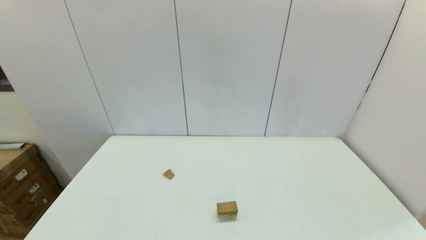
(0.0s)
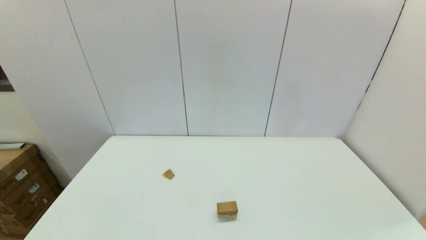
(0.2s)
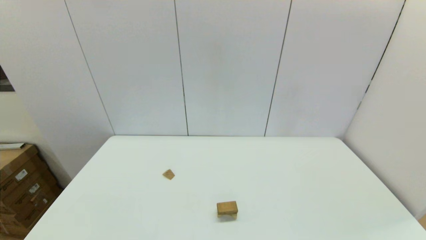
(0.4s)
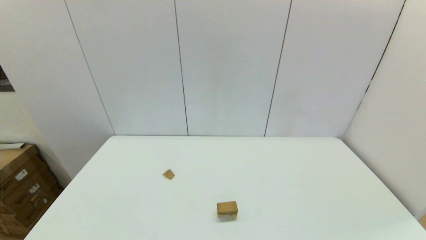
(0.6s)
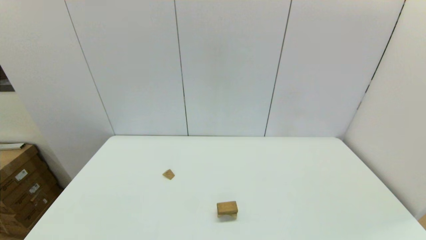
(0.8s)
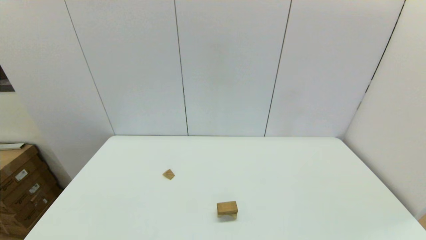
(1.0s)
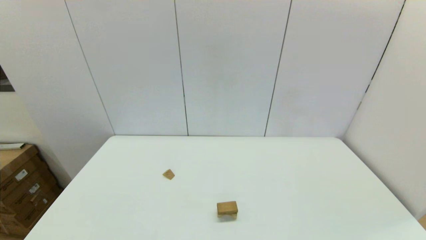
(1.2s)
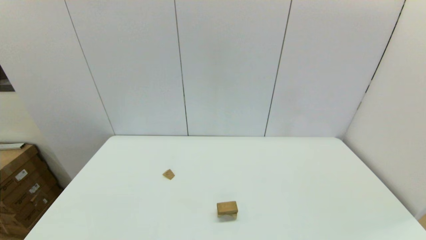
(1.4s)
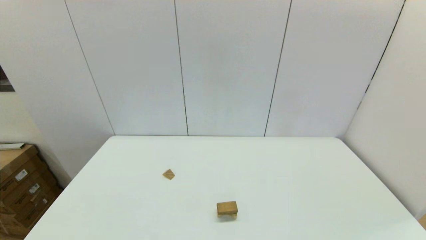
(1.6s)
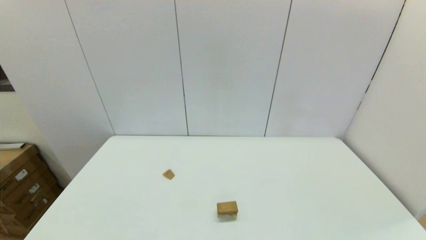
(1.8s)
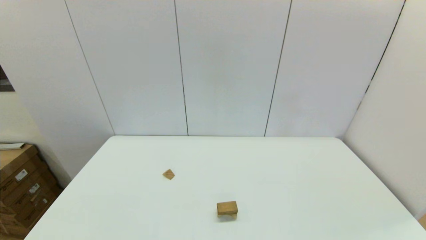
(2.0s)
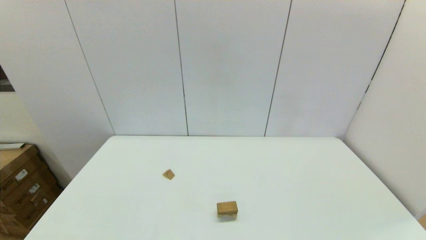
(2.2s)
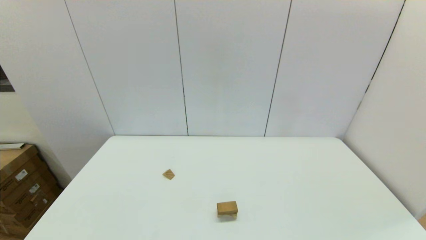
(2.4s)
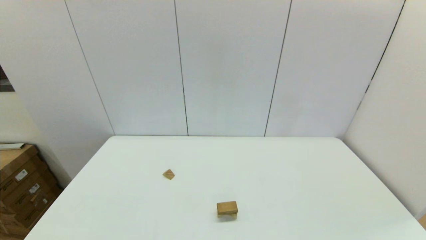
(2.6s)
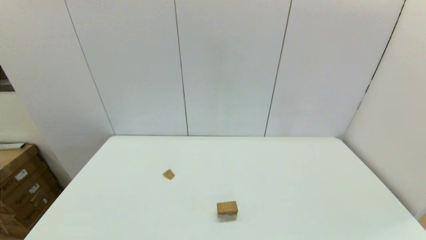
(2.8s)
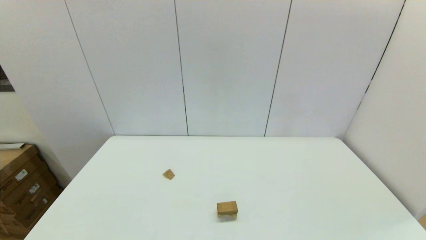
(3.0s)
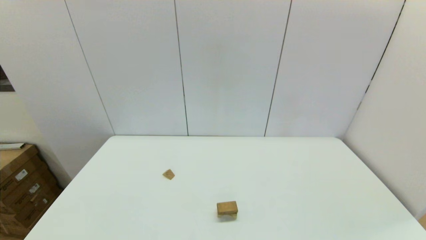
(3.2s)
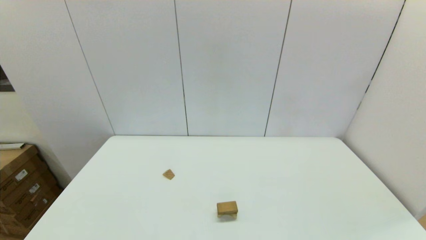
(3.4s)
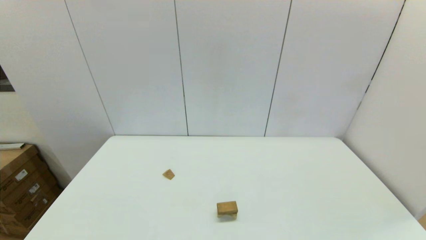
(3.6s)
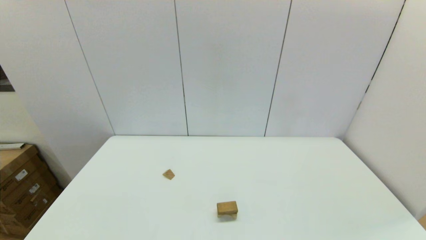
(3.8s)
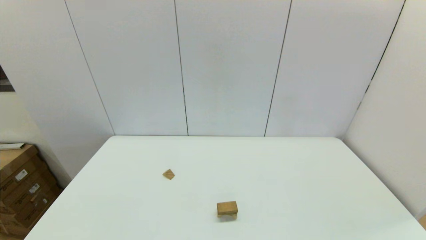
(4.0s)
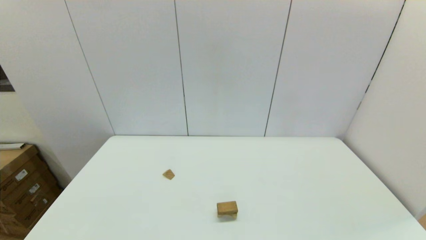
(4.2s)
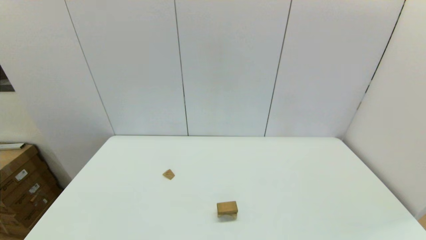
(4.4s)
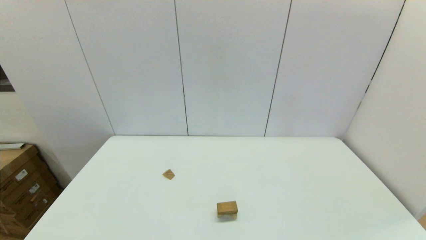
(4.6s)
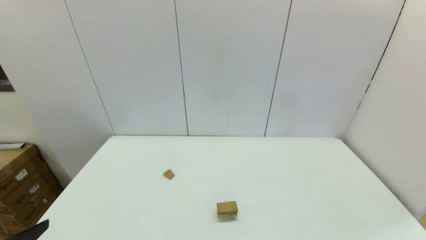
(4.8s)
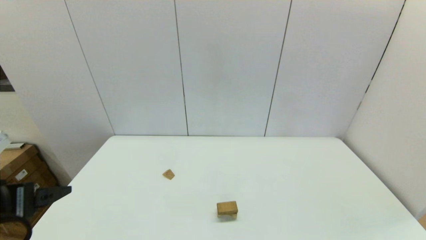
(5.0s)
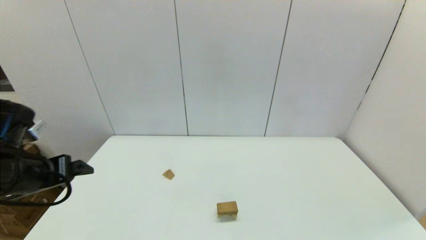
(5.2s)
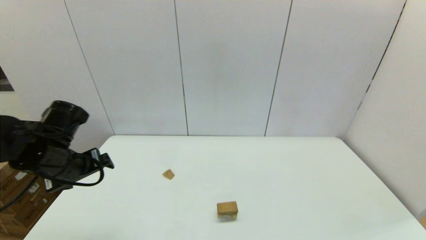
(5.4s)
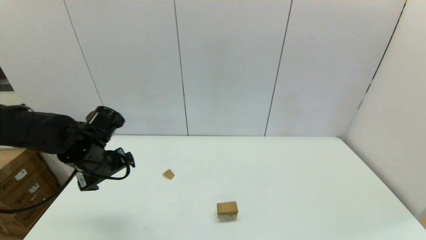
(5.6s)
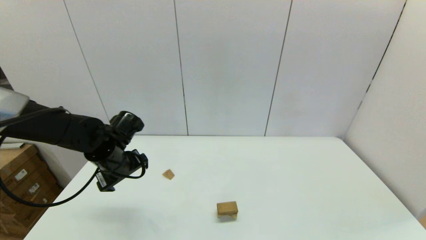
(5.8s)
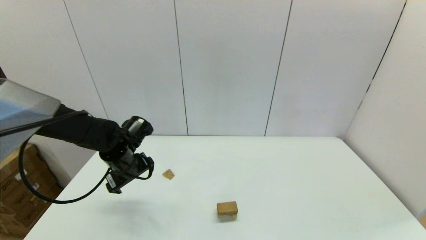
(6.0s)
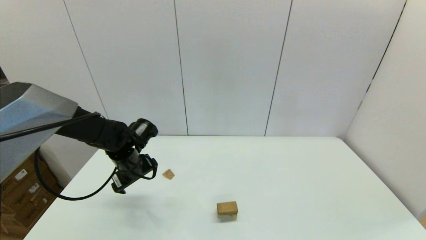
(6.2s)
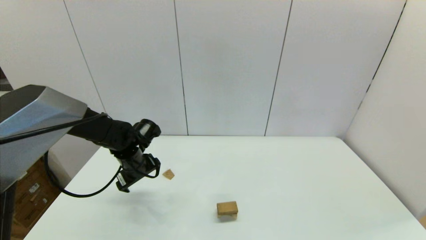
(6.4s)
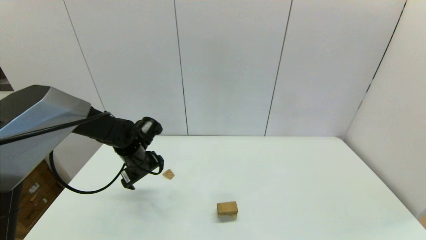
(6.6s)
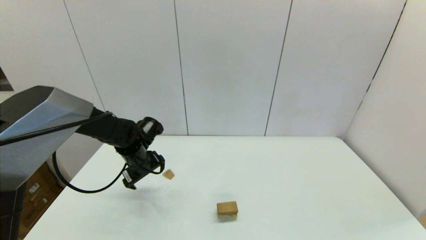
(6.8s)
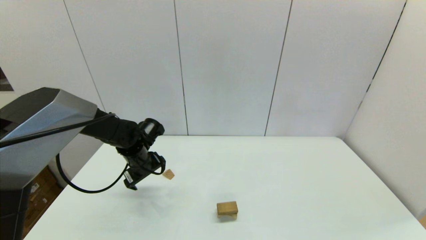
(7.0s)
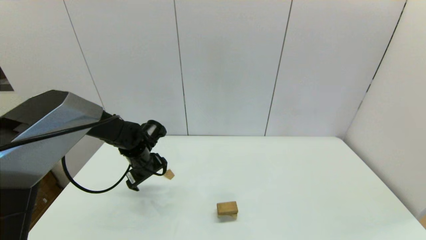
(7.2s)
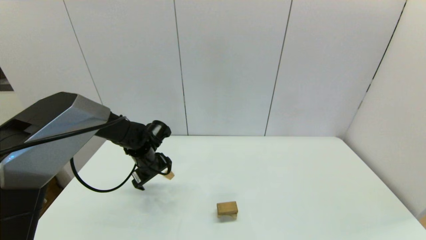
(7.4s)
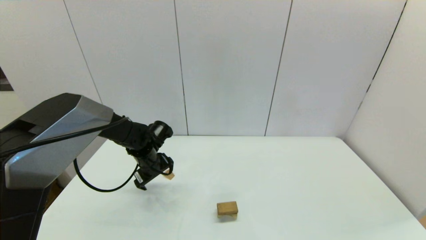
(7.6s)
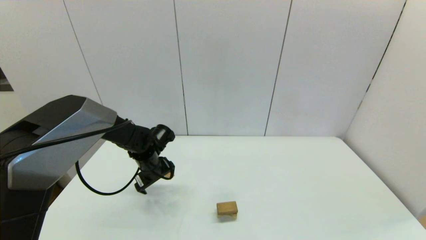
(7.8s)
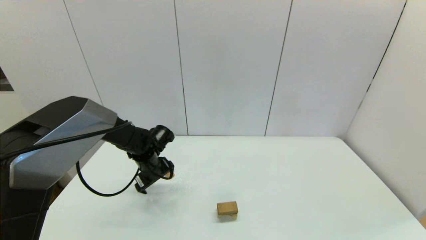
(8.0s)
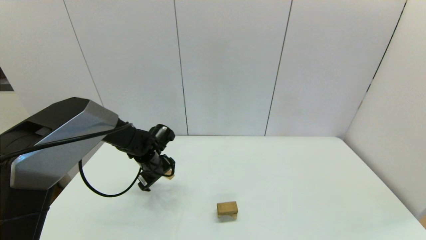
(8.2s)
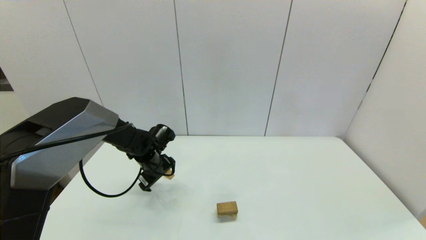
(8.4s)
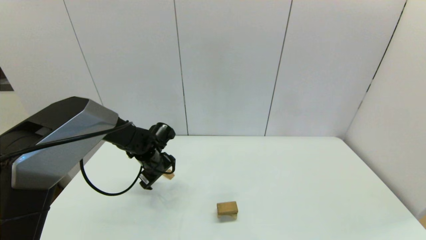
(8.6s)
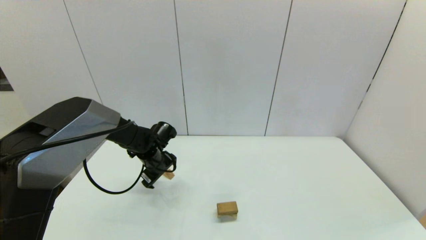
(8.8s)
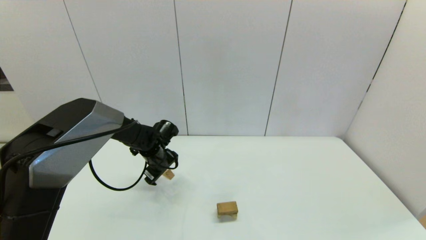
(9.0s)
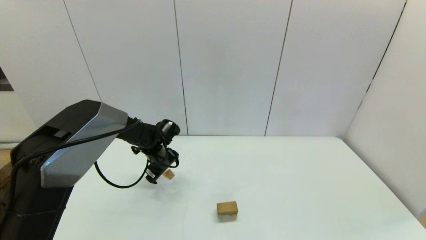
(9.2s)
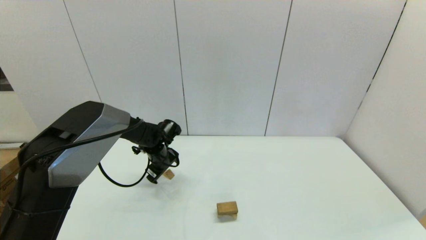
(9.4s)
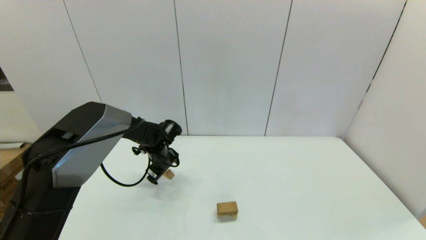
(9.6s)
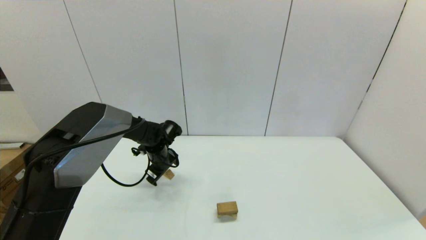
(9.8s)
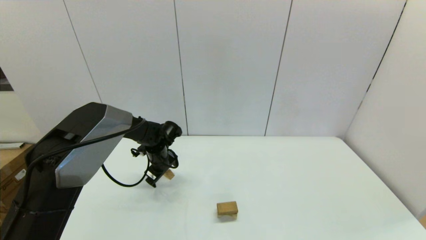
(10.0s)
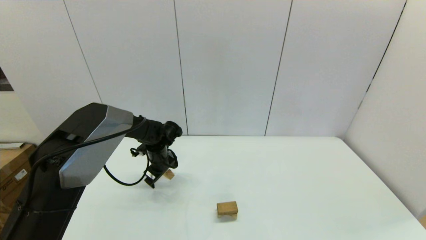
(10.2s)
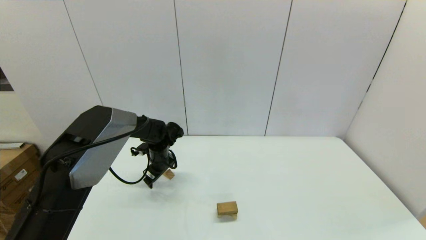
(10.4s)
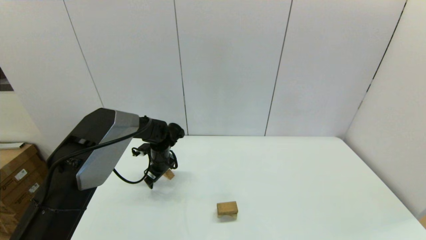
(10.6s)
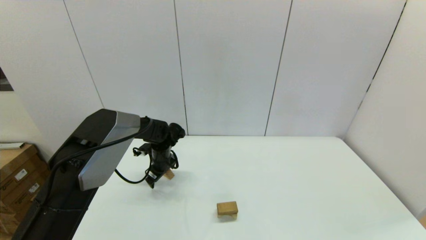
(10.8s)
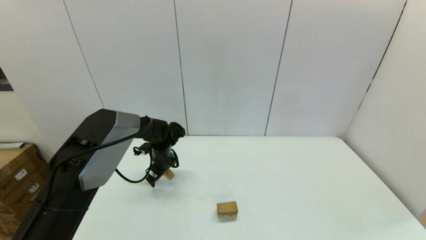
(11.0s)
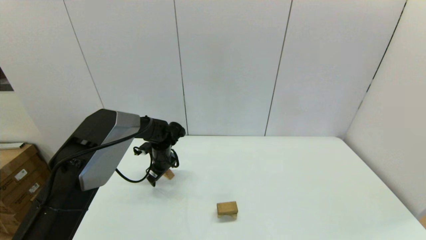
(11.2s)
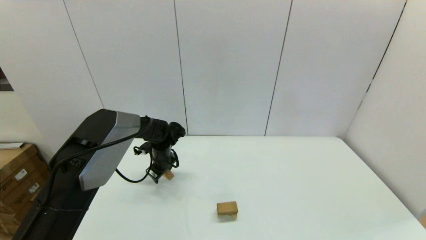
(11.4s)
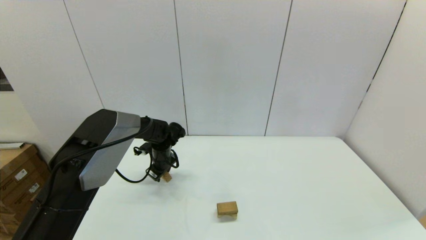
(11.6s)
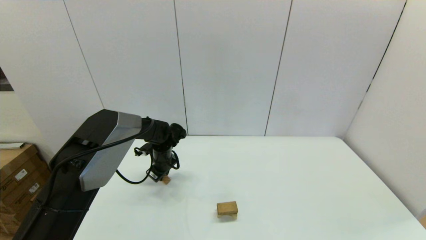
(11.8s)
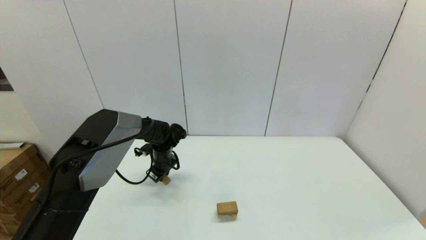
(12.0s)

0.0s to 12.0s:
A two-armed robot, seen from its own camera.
Task of the whole recording: place the arched building blocks in the center of the table, set up the rectangular building blocks, and then set up the triangular building blocks.
4.4s to 6.0s: The left gripper travels forward by approximately 35 cm.
6.0s to 7.6s: The left gripper shifts by about 10 cm.
7.6s to 10.4s: There are only small adjustments of the grippers.
10.4s to 12.0s: The left gripper closes up.

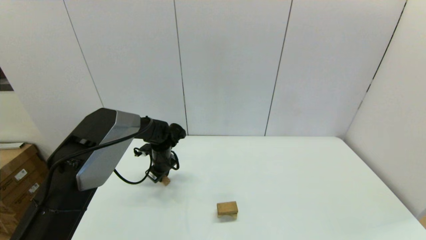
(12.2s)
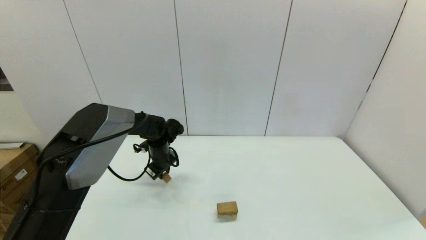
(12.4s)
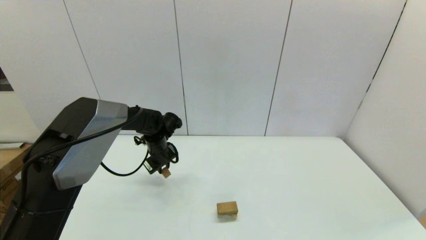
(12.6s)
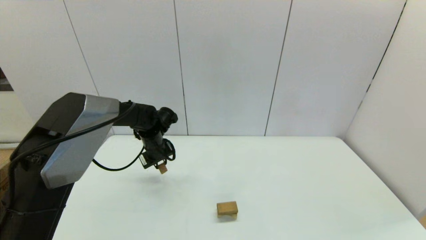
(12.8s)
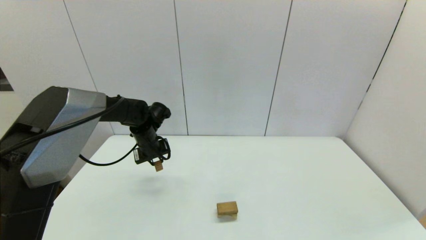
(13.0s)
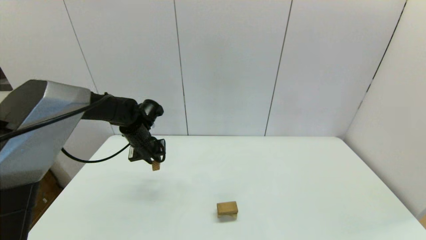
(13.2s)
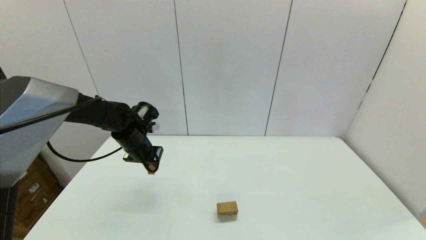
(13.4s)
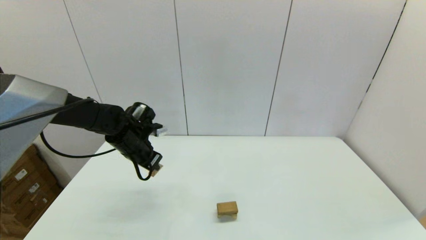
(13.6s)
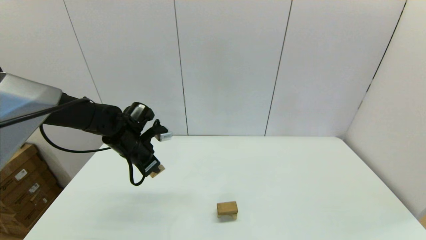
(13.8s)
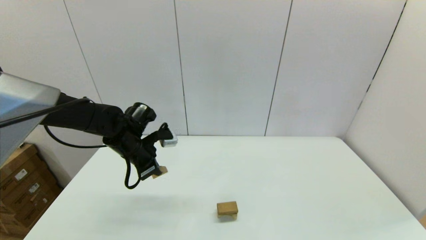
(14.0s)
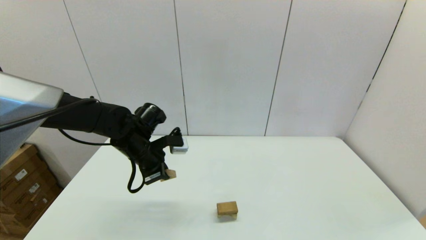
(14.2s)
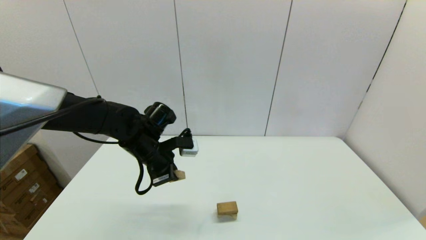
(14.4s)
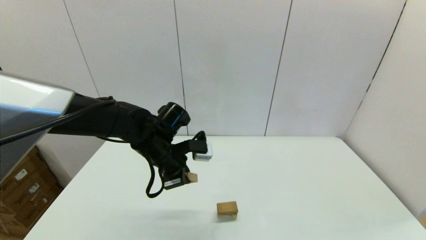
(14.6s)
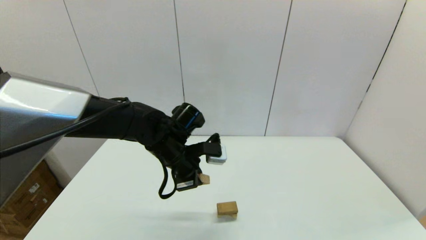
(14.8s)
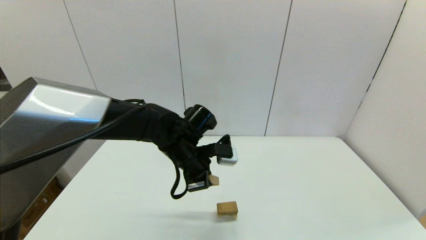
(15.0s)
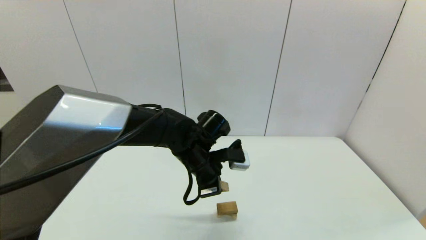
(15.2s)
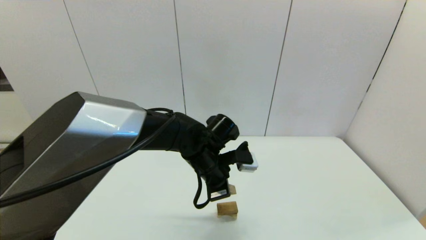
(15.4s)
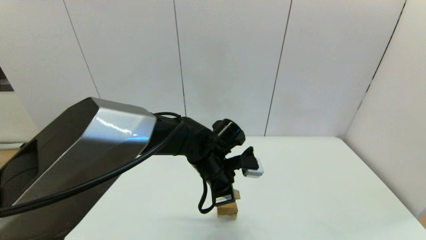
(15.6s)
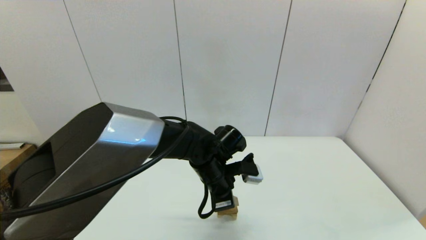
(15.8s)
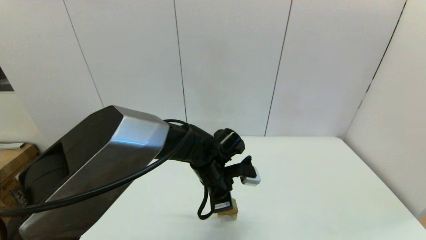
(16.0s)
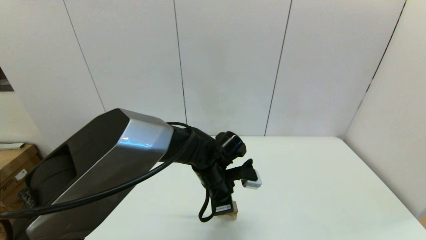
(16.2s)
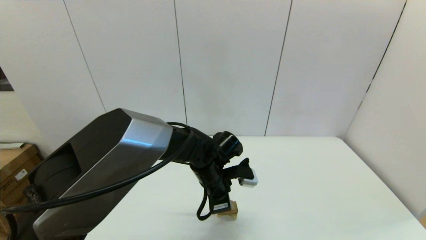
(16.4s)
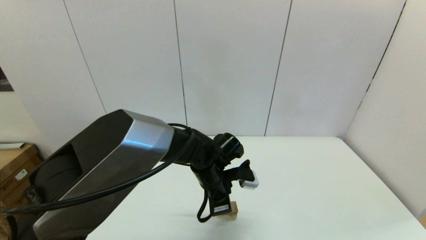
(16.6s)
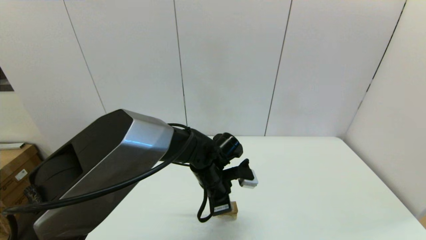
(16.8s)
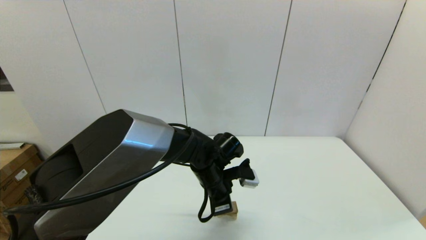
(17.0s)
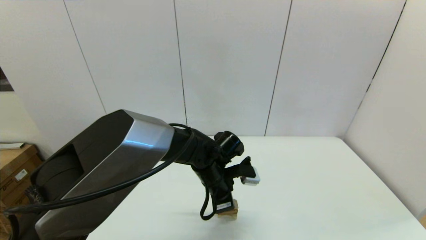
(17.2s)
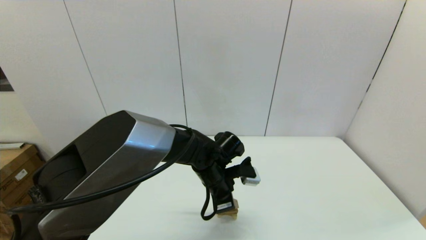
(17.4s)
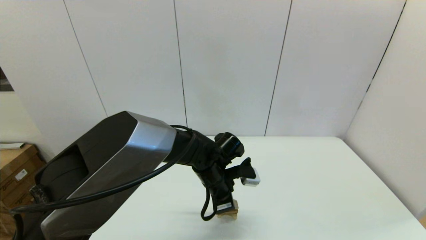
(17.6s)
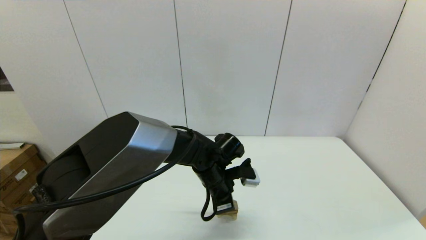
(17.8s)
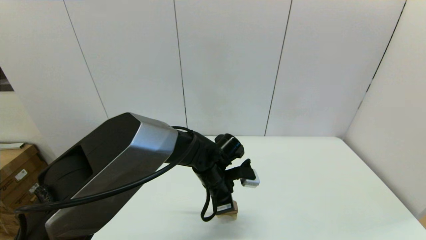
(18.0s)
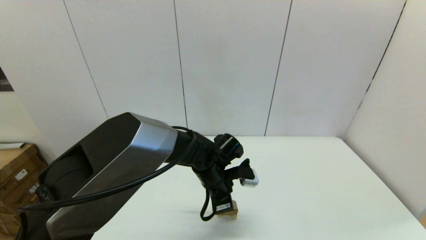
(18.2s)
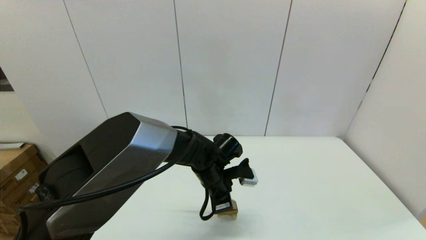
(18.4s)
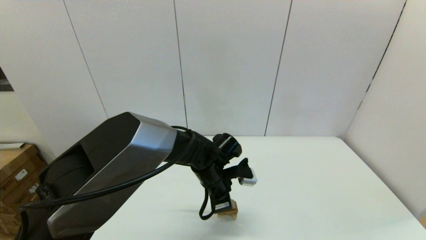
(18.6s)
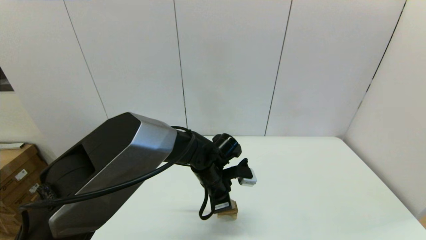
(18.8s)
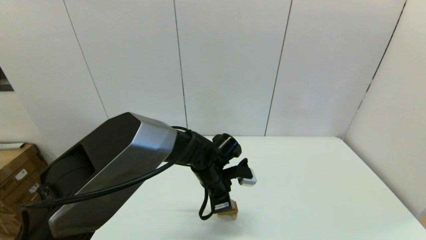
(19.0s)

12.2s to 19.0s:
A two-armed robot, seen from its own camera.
Task of the whole recording: place the arched building blocks in the center of the table, set up the rectangular building blocks, and then set up the triangular building blocks.
12.2s to 13.6s: The left gripper shifts some 10 cm upward, backward and to the left.
13.6s to 15.0s: The left gripper travels to the right by roughly 15 cm.
15.0s to 16.2s: The left gripper is displaced downward and to the right by roughly 10 cm.
16.2s to 17.6s: Both grippers stay about where they are.
17.6s to 19.0s: Both grippers stay put.
